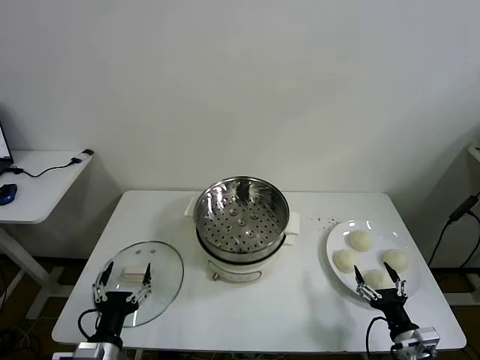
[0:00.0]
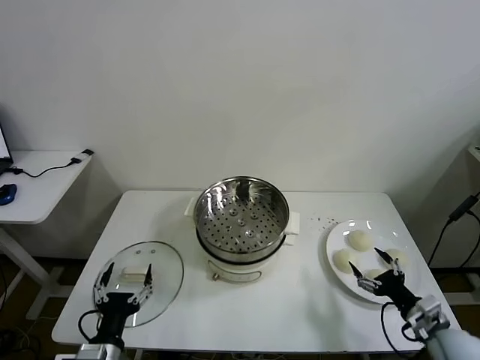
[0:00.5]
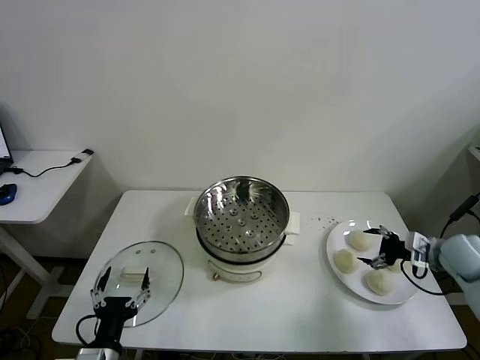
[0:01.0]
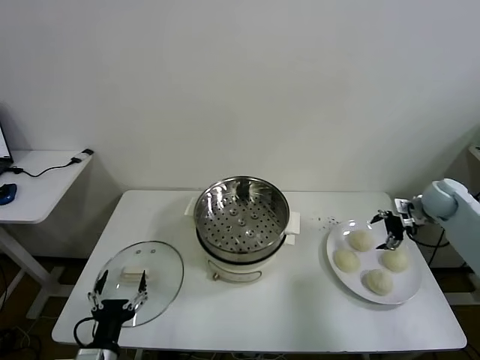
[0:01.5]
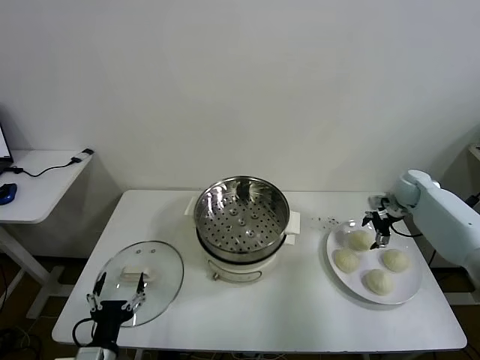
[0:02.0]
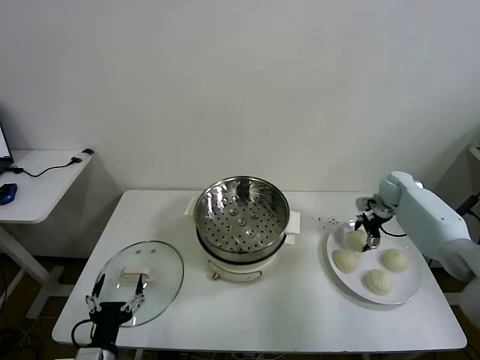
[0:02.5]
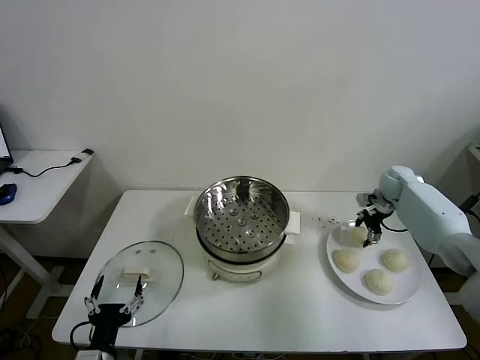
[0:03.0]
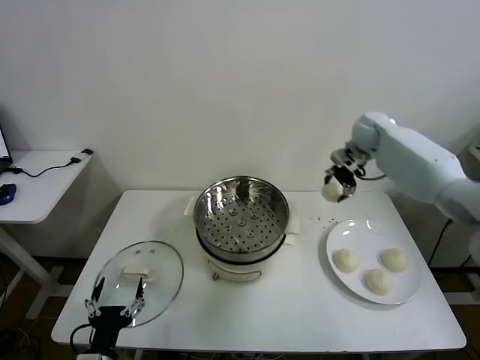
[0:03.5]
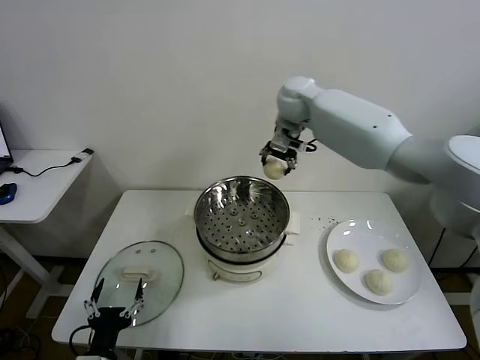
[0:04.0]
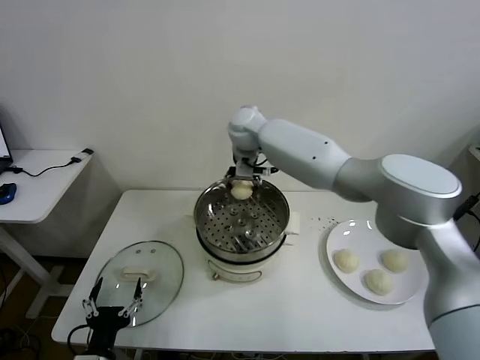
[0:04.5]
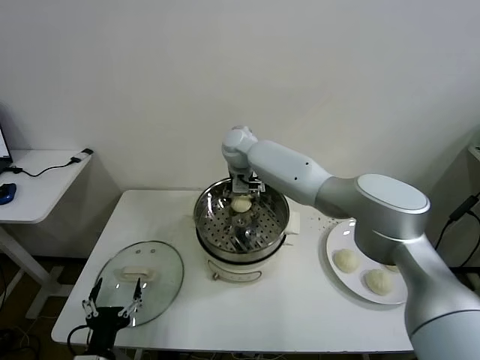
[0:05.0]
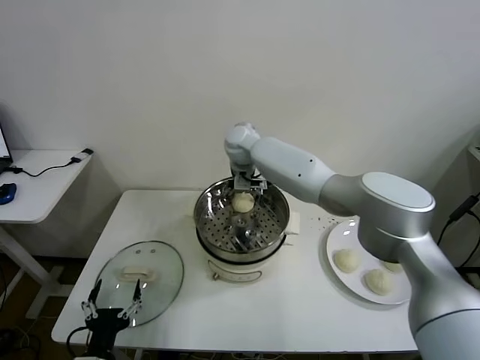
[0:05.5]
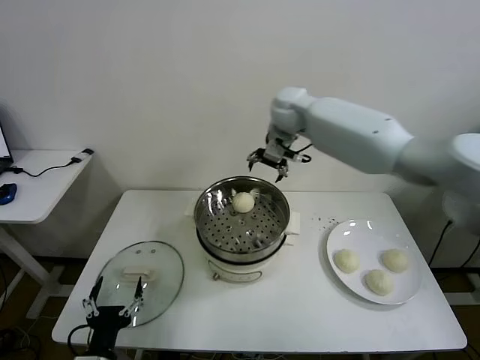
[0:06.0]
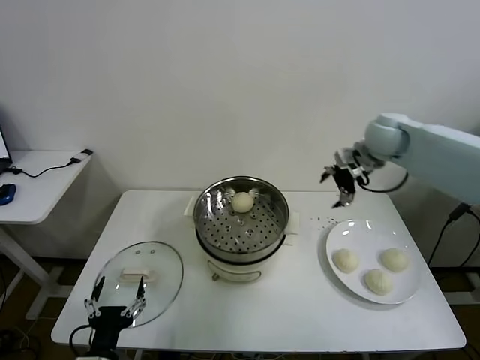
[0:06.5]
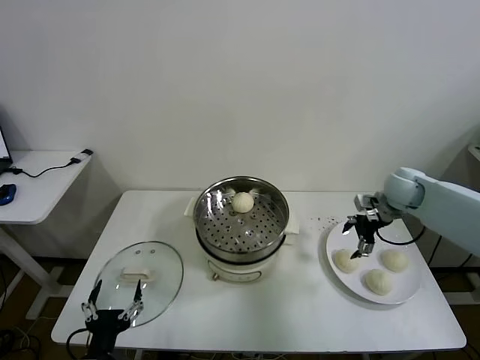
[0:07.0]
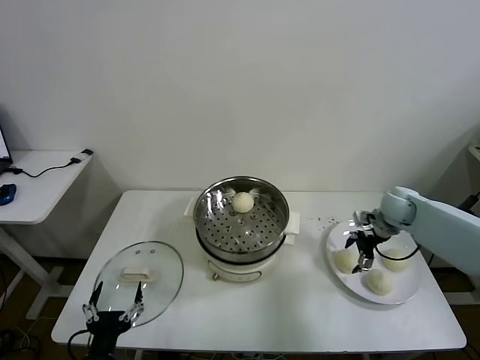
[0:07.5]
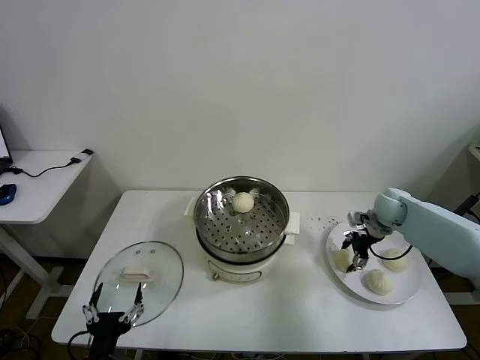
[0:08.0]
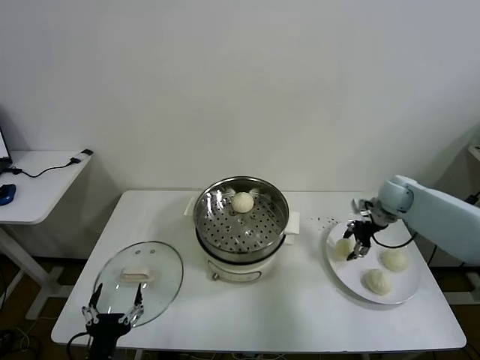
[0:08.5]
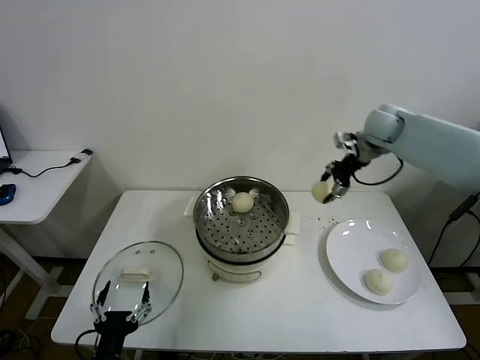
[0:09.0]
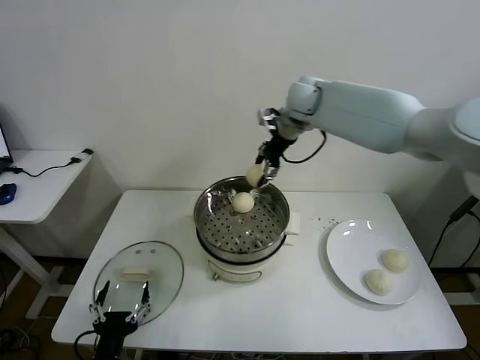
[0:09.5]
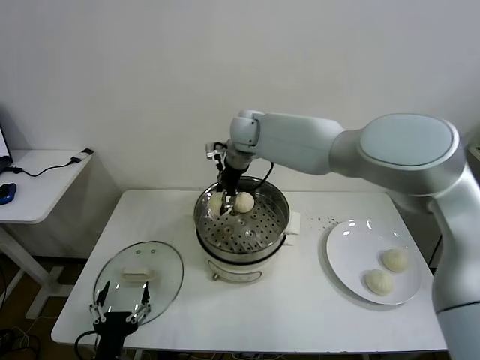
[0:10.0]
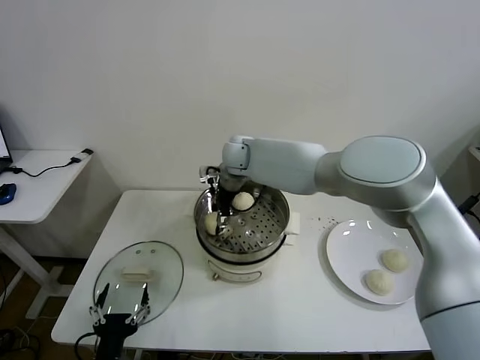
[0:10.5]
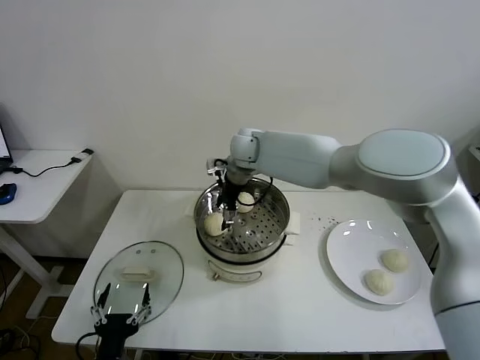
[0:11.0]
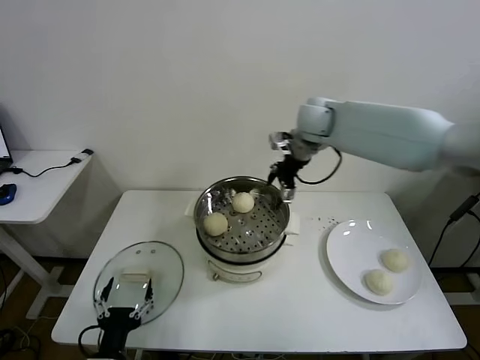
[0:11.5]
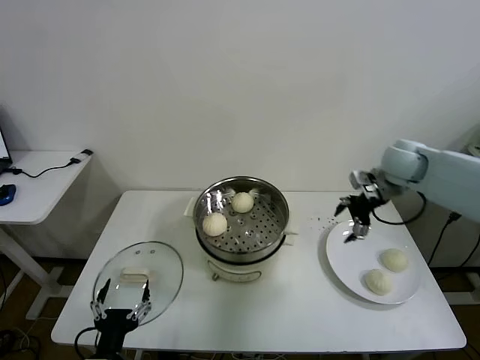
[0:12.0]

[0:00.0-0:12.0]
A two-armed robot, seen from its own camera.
Task of the whole recording: take steamed baozi put them in steamer then cover it.
Step, 0:00.0 to 0:02.5: Grasp the baozi in the plate with right gripper.
Step, 0:03.0 to 0:05.5: Place the baozi on the steamer with right gripper.
Step, 0:06.0 to 0:08.0: Grasp the baozi in the plate with right gripper.
Step, 0:08.5 to 0:11.0: Place the baozi on the steamer with right gripper.
0:02.0 to 0:04.0: The right gripper shifts about 40 cm to the left and upward, and closes its fingers.
0:04.0 to 0:06.0: The right gripper shifts about 5 cm to the right, and opens up.
0:06.0 to 0:08.0: The right gripper travels downward and to the right by roughly 35 cm, and closes up.
0:08.0 to 0:10.0: The right gripper heads to the left and upward, covering approximately 40 cm.
0:10.0 to 0:12.0: The right gripper travels to the right by roughly 35 cm, and opens.

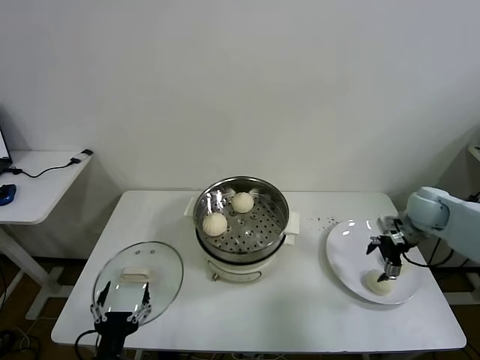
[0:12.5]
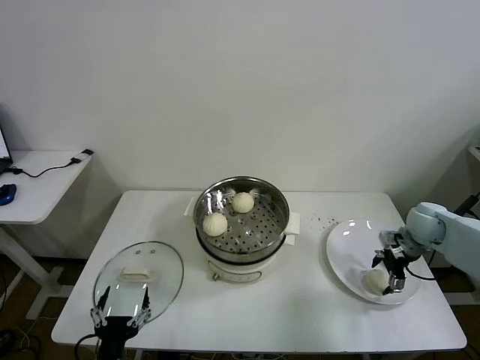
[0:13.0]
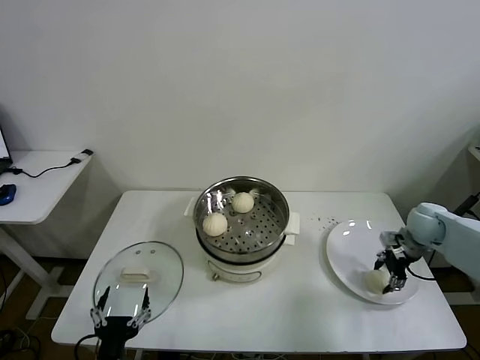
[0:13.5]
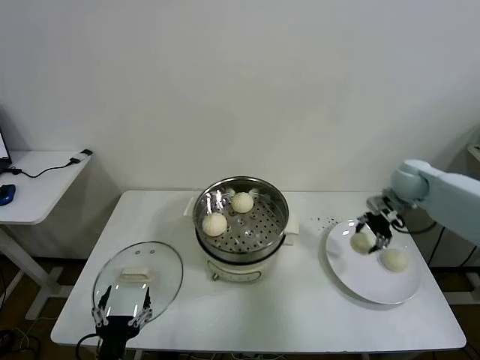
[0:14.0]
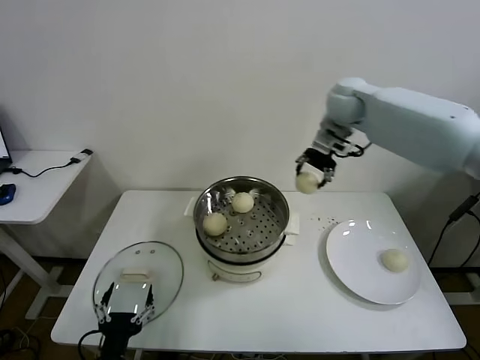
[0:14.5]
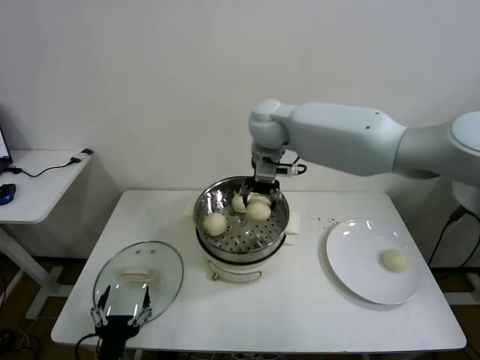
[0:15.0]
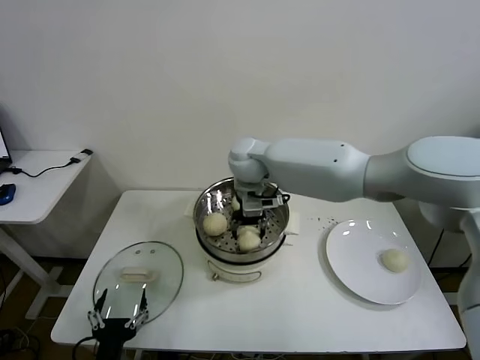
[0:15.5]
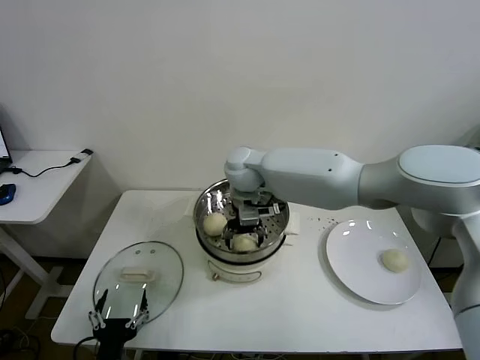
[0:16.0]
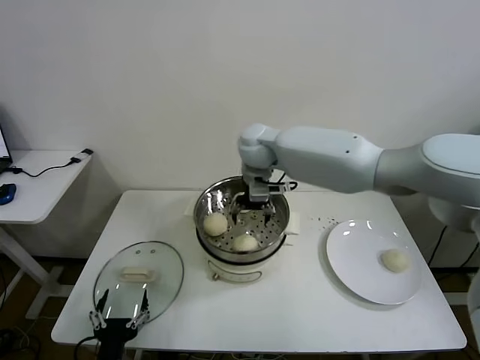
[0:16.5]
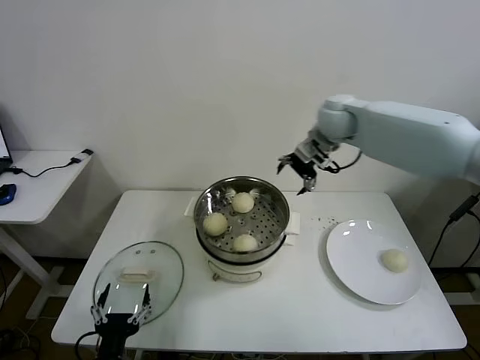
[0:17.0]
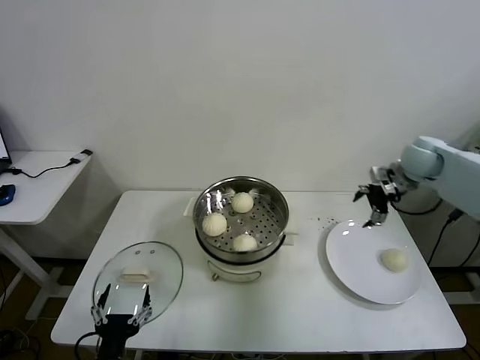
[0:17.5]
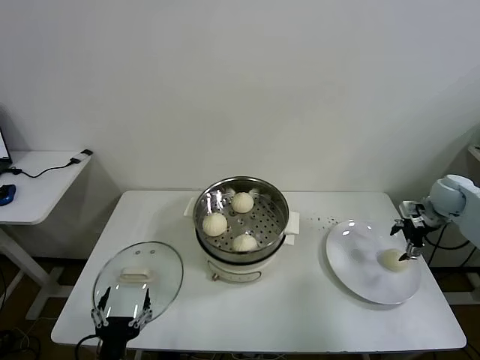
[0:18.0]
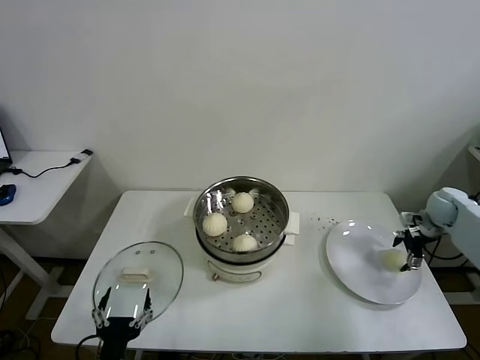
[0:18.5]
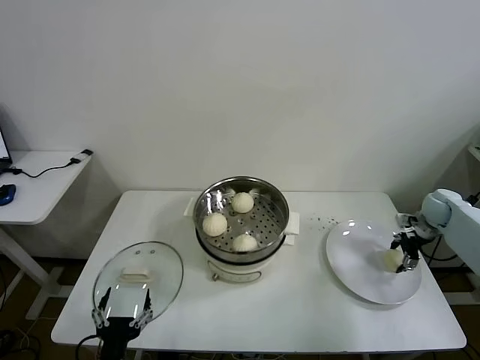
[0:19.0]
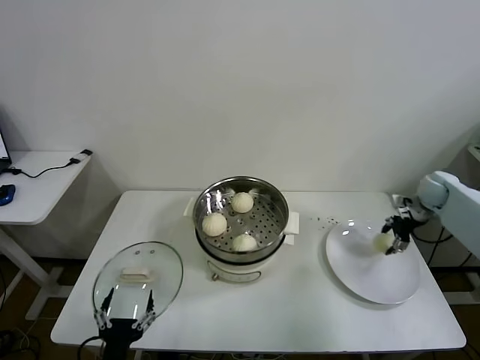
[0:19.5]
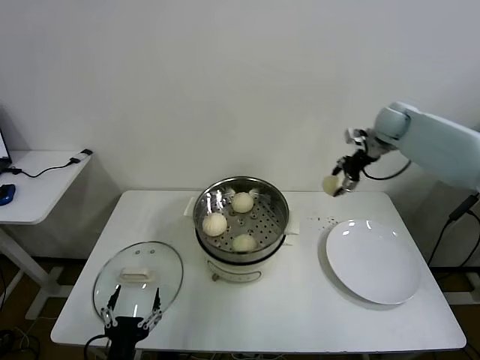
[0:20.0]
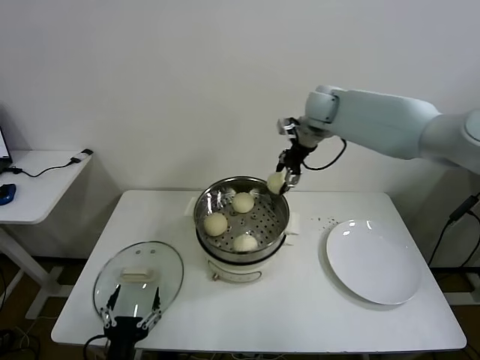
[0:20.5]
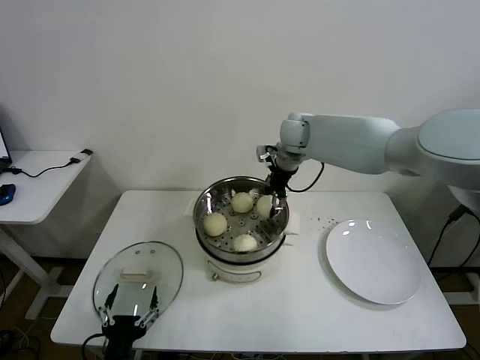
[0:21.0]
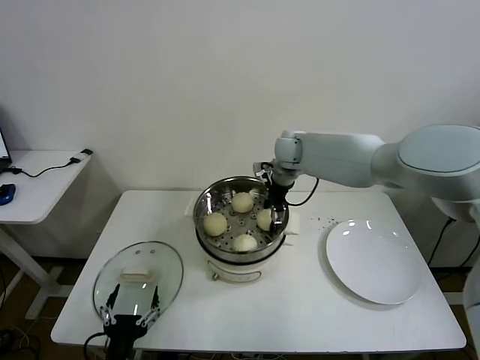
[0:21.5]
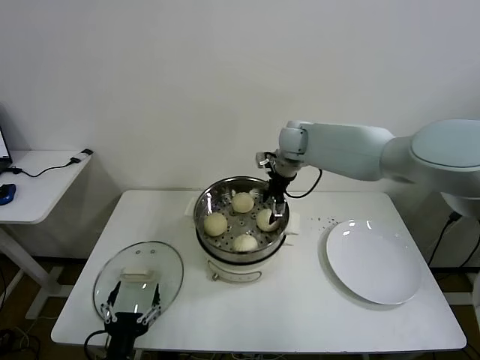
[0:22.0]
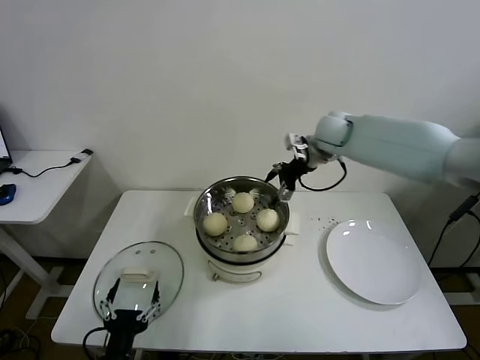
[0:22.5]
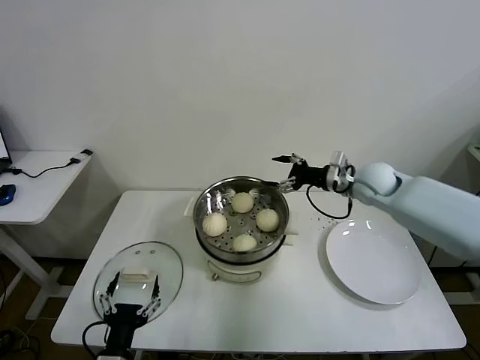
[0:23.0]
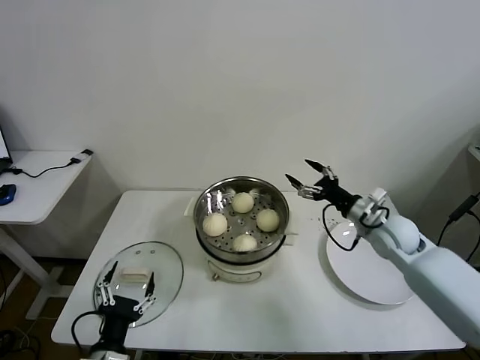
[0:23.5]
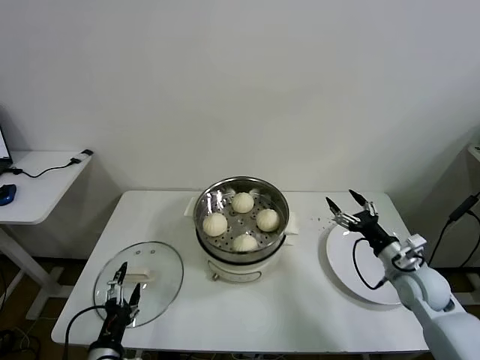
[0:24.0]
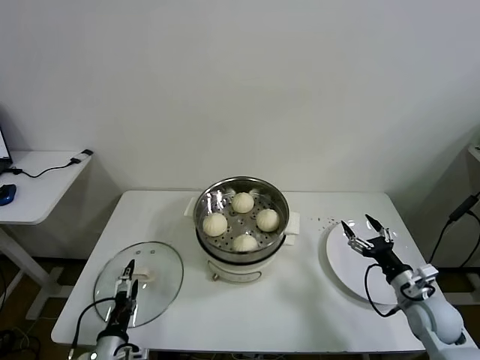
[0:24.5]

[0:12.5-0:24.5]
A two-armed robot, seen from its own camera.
Task of the whole recording: take steamed baozi put them in steamer then cover it.
Step, 0:14.0 to 0:16.0: Place the baozi on the steamer with right gripper.
Step, 0:16.5 to 0:19.0: Grasp the baozi in the plate with right gripper.
Step, 0:19.5 to 0:22.0: Place the baozi on the steamer with right gripper.
0:12.5 to 0:14.5: The right gripper shifts some 35 cm to the left, upward and forward, and closes up.
0:14.5 to 0:16.5: The right gripper is displaced to the left and downward by about 20 cm, and opens.
0:16.5 to 0:18.5: The right gripper shifts some 50 cm to the right.
0:18.5 to 0:20.5: The right gripper is displaced to the left and upward by some 40 cm, and closes.
0:20.5 to 0:22.5: The right gripper goes some 5 cm downward, and opens.
0:22.5 to 0:24.5: The left gripper moves downward, forward and to the left, some 10 cm. Meanwhile the right gripper heads backward, downward and to the right, covering some 50 cm.

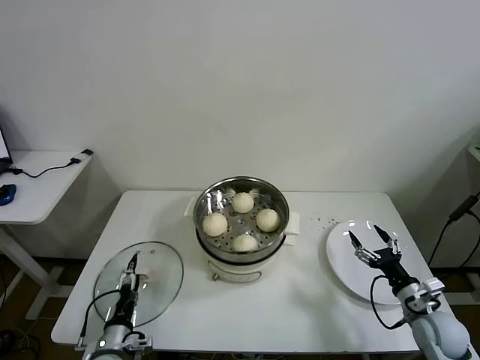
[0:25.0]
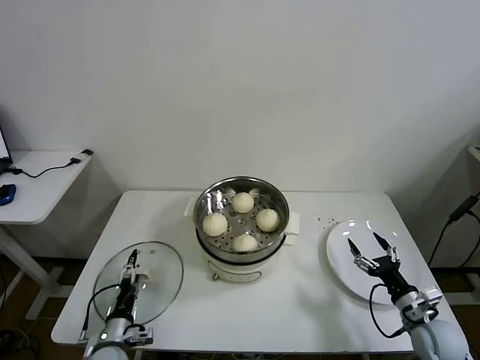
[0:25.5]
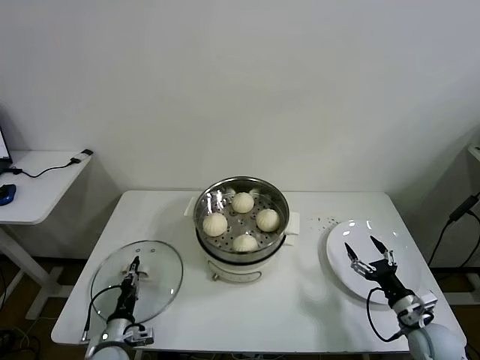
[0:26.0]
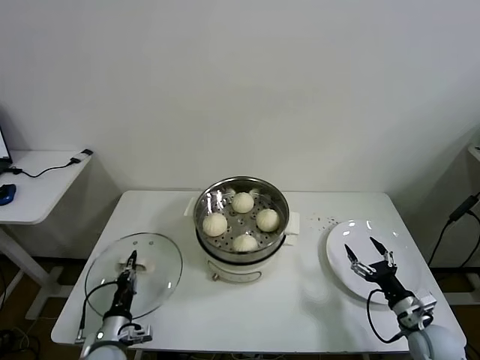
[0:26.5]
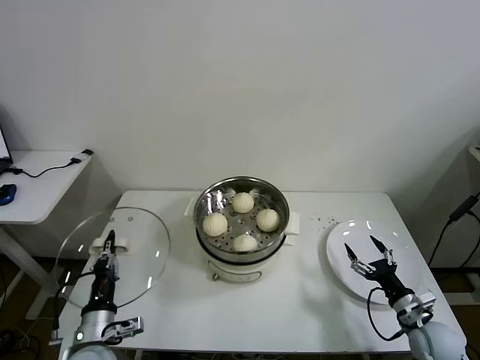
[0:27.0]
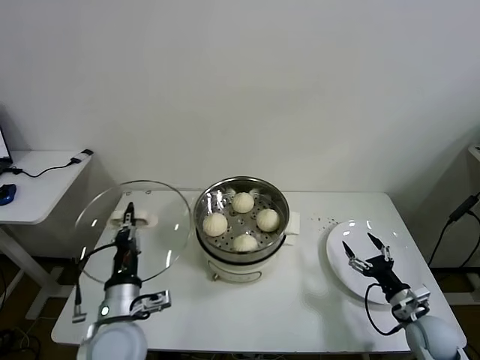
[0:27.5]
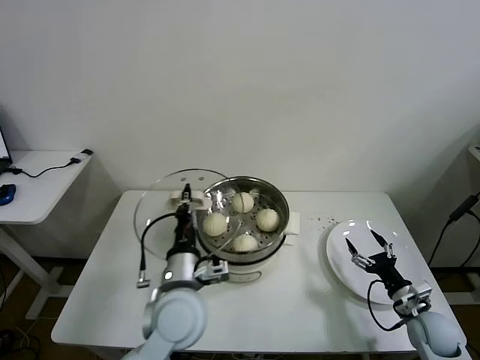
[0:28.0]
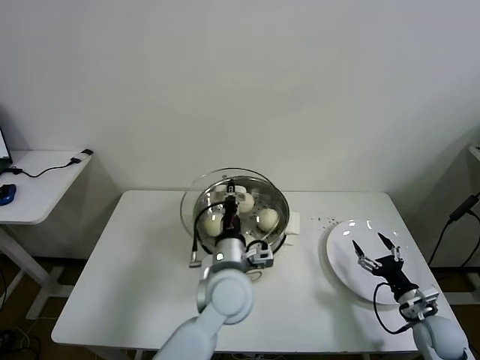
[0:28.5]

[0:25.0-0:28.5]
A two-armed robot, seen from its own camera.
Task of the whole recording: take steamed baozi put them in steamer then cover it.
0:25.0 to 0:27.0: The left gripper shifts about 10 cm upward, and closes.
0:27.0 to 0:28.5: The left gripper shifts some 30 cm to the right, forward and upward.
